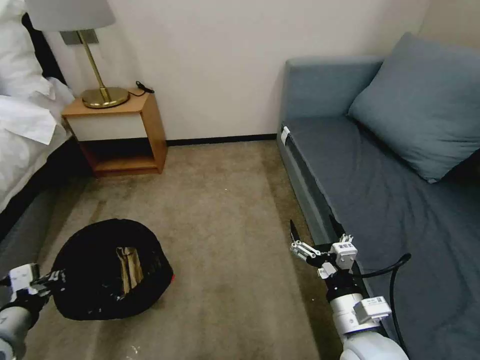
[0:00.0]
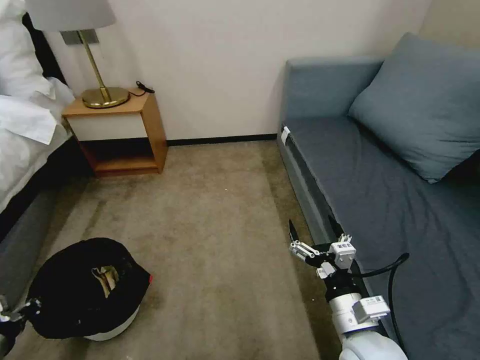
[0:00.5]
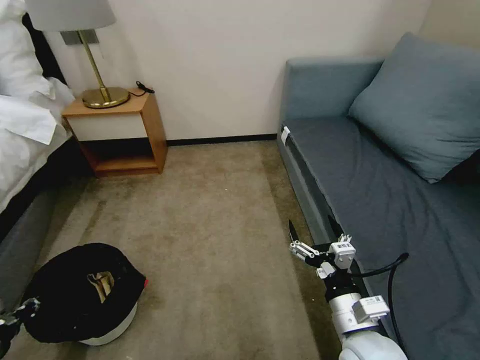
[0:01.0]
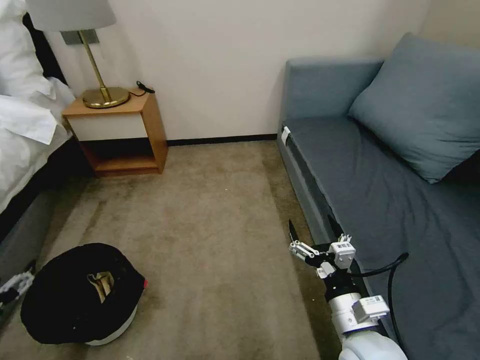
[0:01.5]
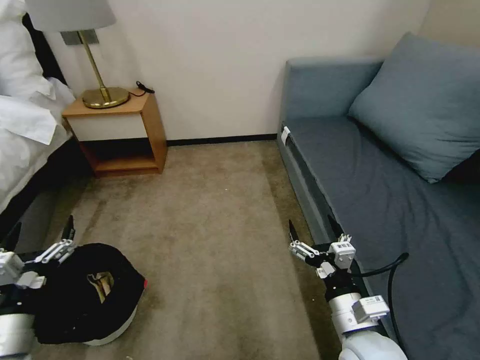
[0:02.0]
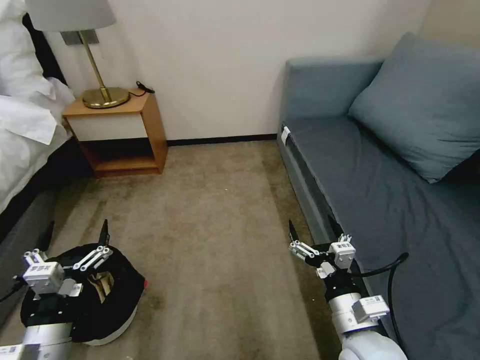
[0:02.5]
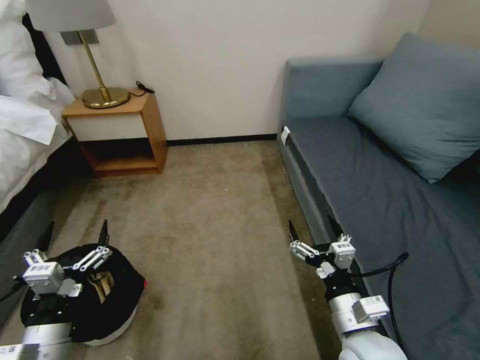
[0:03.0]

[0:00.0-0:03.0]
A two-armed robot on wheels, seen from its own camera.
Task of the whole recording: Pick up the trash bin, then pick up the garbage on the floor and place it into the trash bin.
0:00.0 to 0:01.5: The left gripper heads to the left, covering approximately 5 cm, and opens.
0:01.5 to 0:03.0: The left gripper shifts approximately 15 cm to the right.

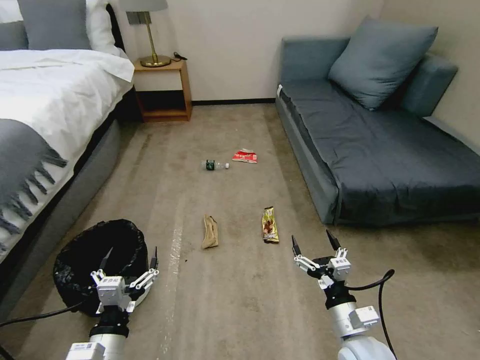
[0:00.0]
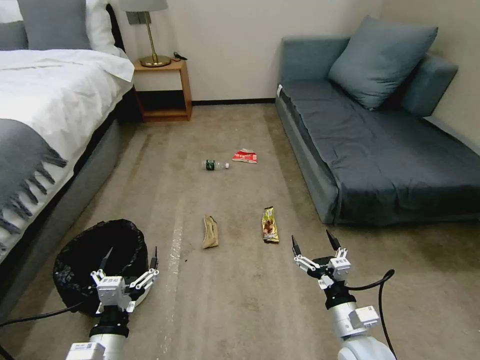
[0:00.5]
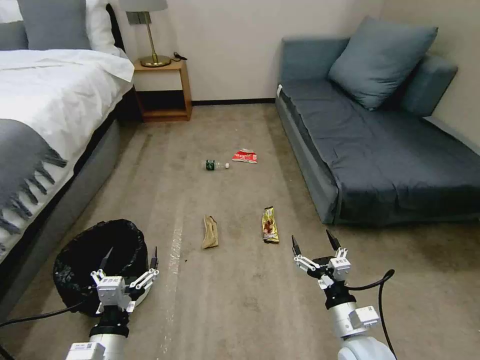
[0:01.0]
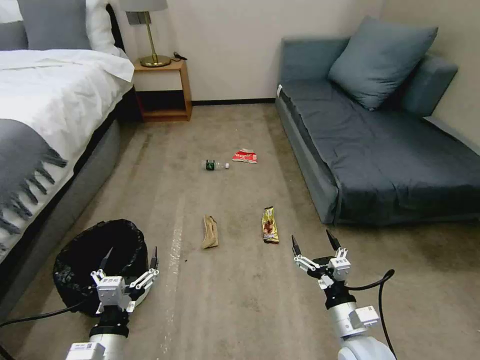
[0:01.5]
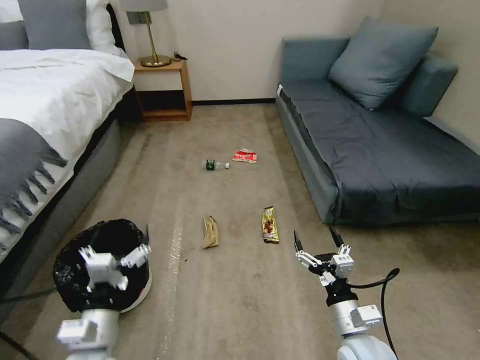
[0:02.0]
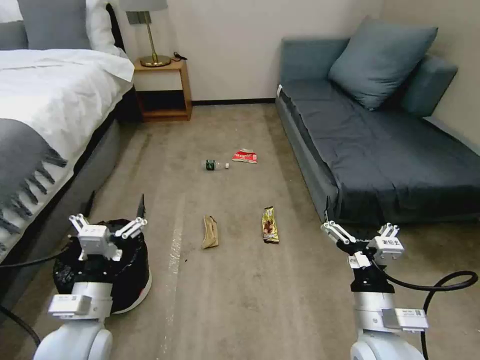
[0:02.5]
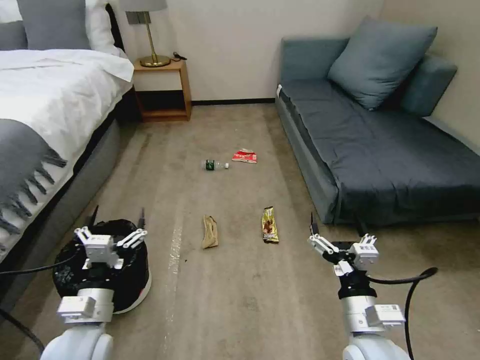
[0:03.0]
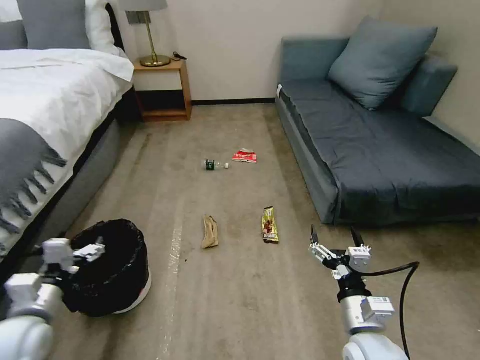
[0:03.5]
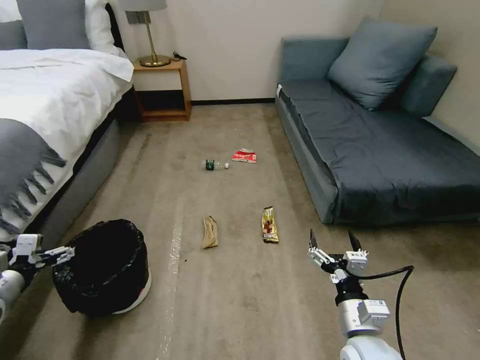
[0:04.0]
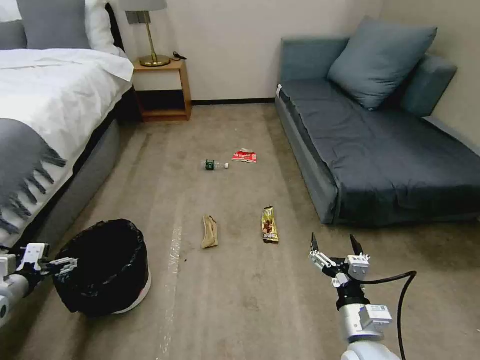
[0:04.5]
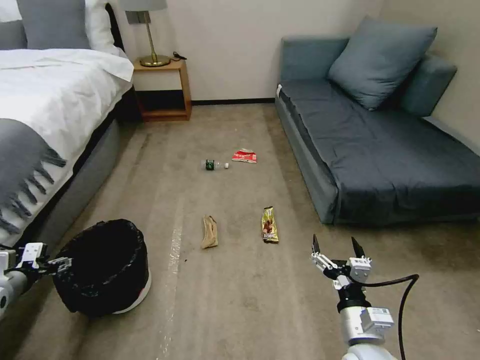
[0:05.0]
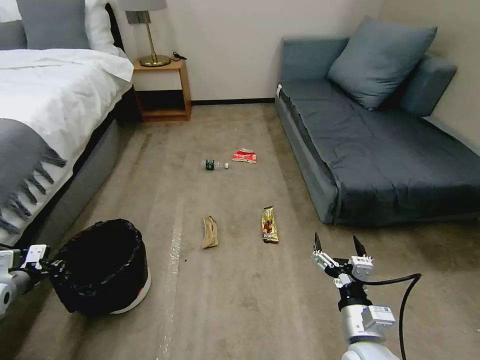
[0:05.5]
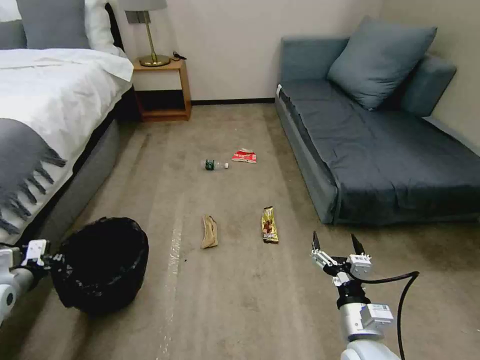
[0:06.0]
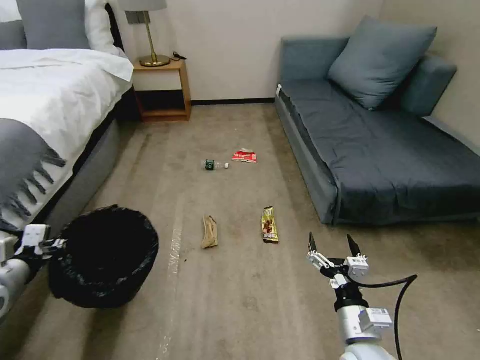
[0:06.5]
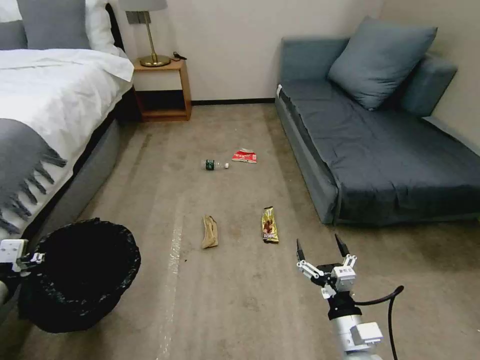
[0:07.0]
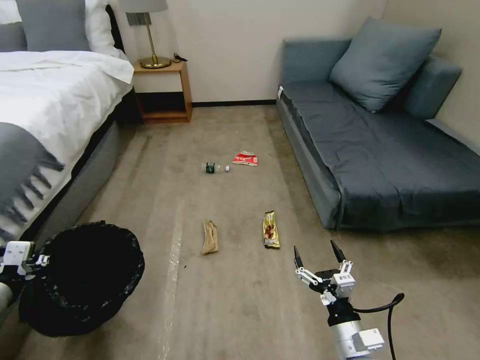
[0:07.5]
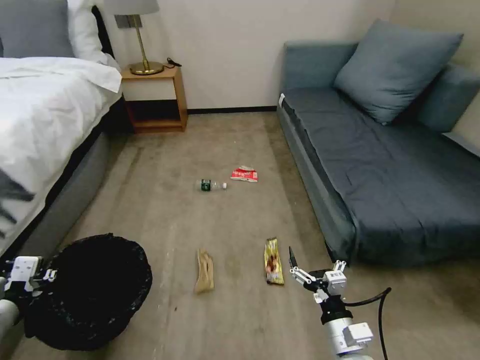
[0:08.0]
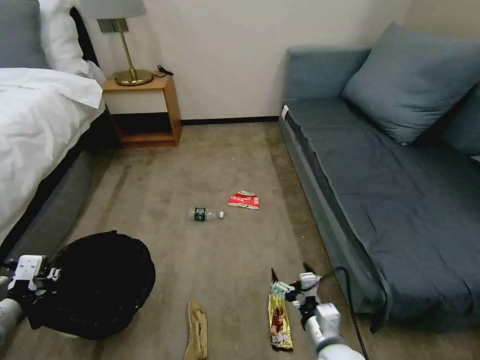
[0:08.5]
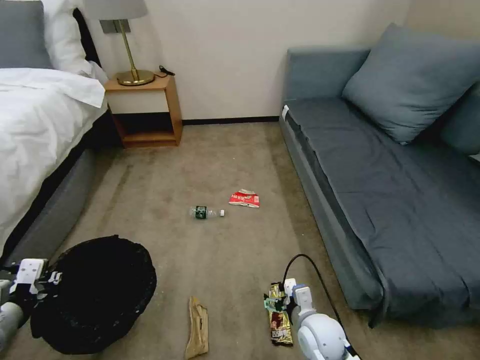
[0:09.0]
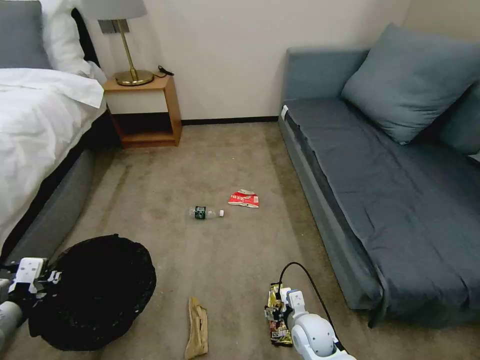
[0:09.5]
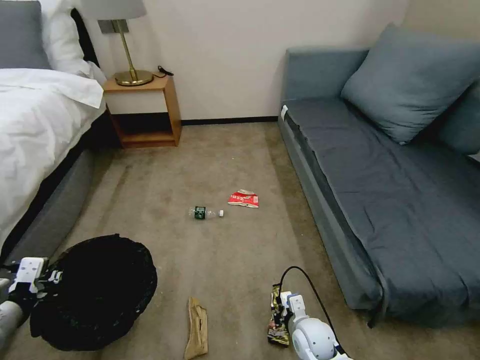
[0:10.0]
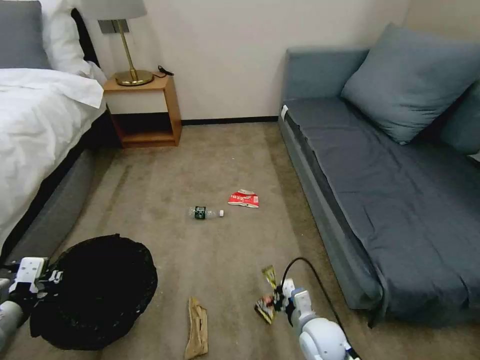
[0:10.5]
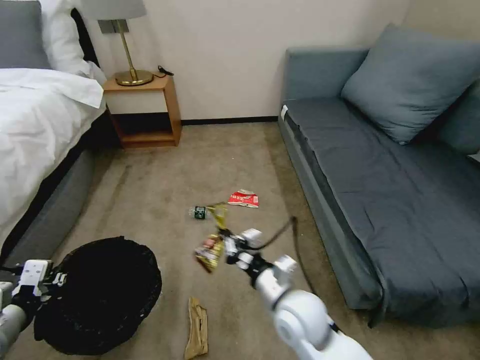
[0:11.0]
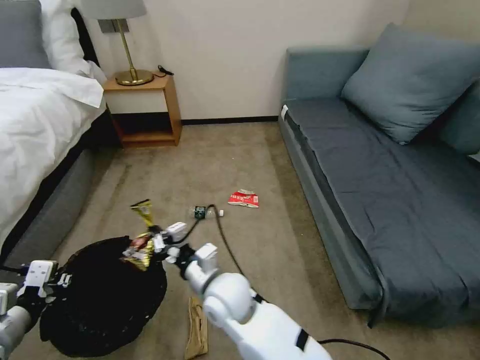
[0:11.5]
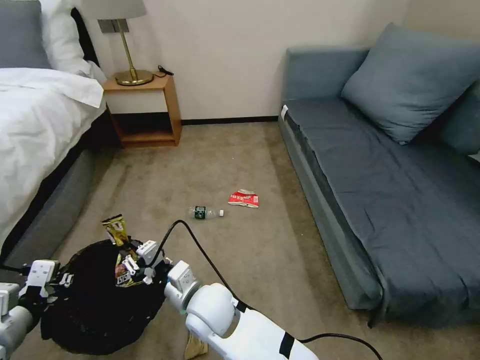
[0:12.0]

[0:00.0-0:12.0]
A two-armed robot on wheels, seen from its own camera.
Task of the whole recording: Pick up the trash bin, then pick up the garbage on the floor and place it into the trash bin.
0:02.0 to 0:04.0: The left gripper goes some 25 cm to the left, while the right gripper travels upward and back again, approximately 10 cm each way.
0:04.0 to 0:06.0: The left gripper closes.
0:06.0 to 0:08.0: The left gripper is displaced backward, to the right and upward by about 15 cm.
0:08.0 to 0:10.0: The right gripper heads downward and forward, covering roughly 15 cm, and closes.
0:10.0 to 0:12.0: The right gripper moves to the left and upward, some 30 cm.

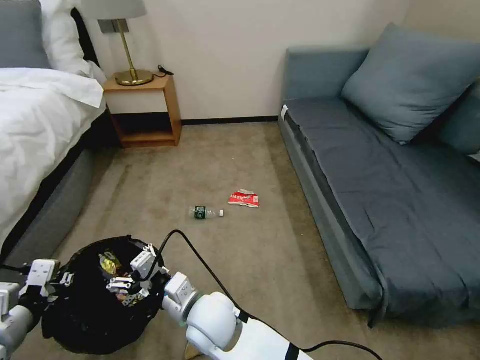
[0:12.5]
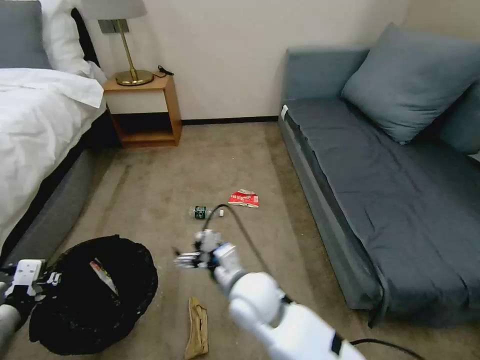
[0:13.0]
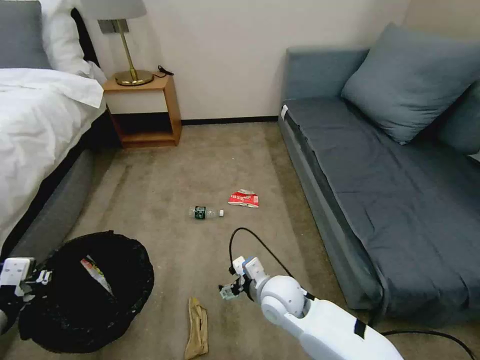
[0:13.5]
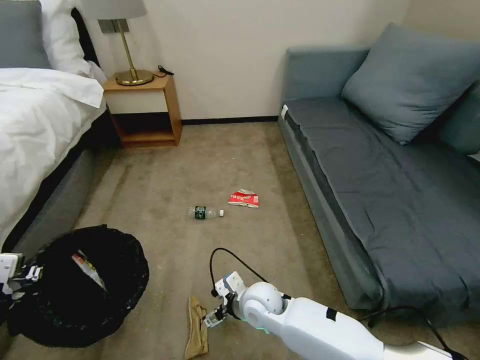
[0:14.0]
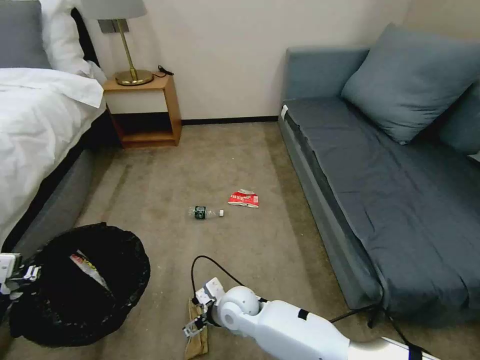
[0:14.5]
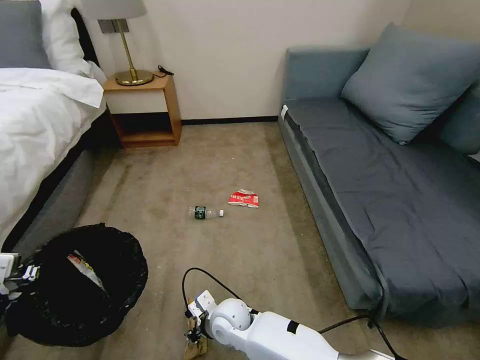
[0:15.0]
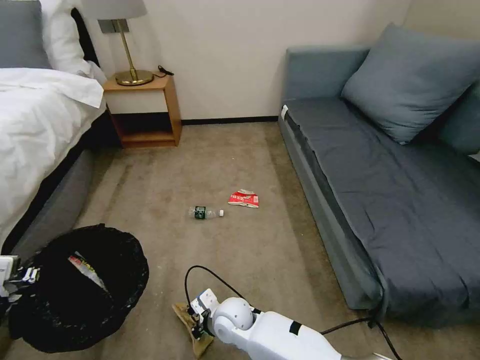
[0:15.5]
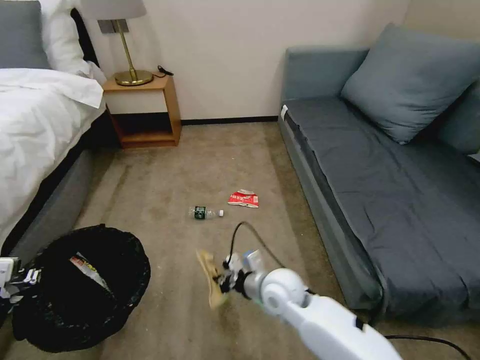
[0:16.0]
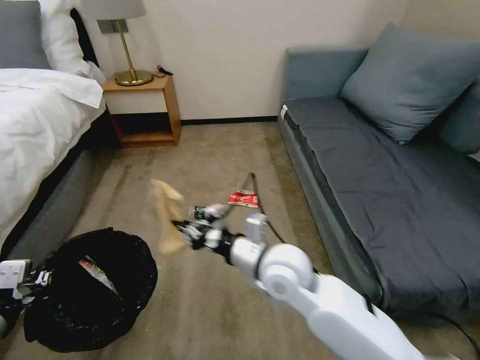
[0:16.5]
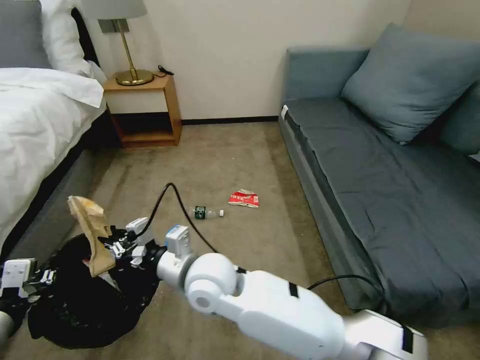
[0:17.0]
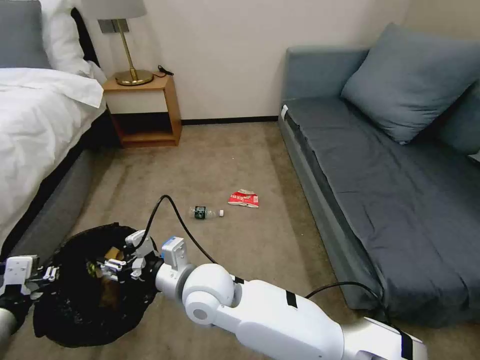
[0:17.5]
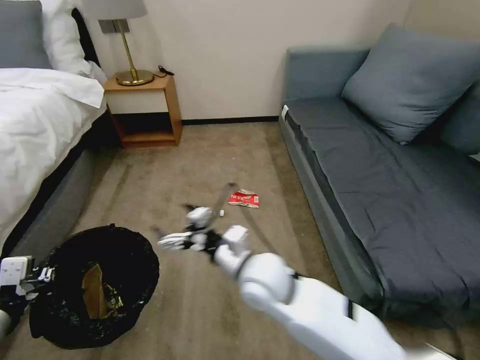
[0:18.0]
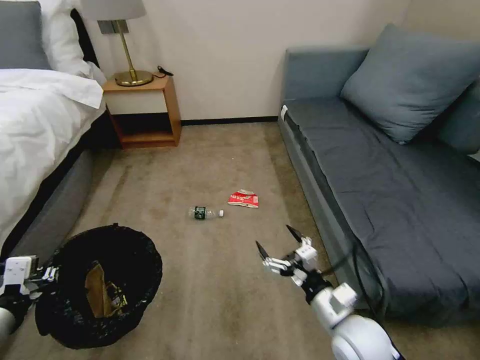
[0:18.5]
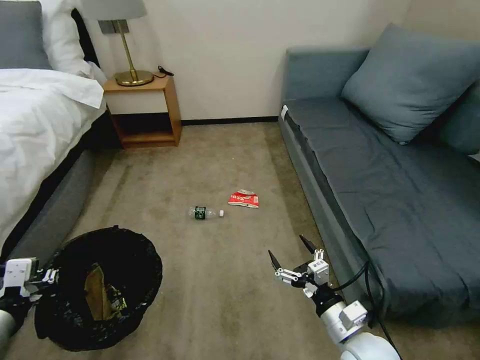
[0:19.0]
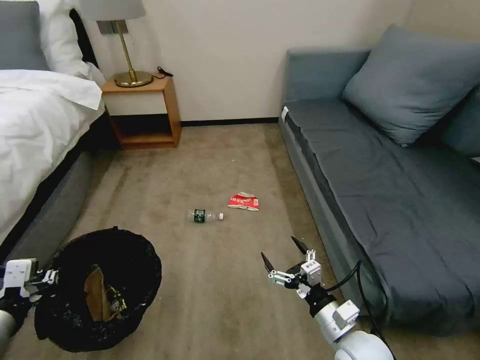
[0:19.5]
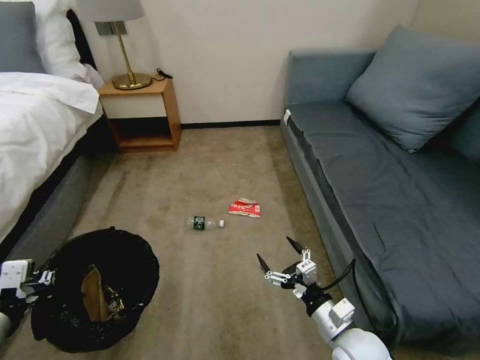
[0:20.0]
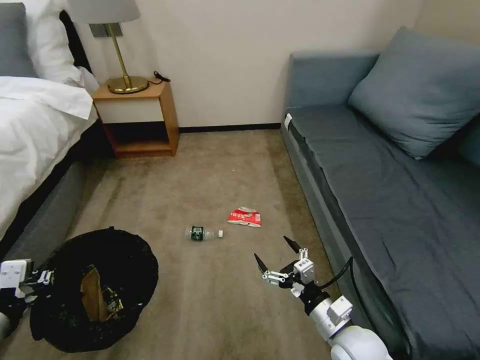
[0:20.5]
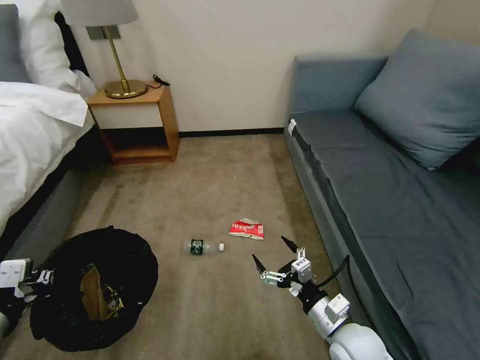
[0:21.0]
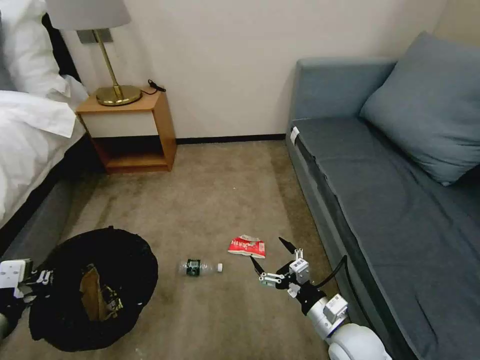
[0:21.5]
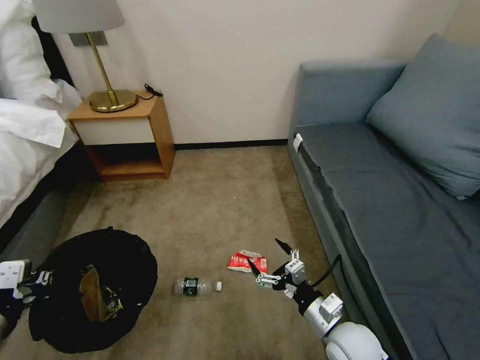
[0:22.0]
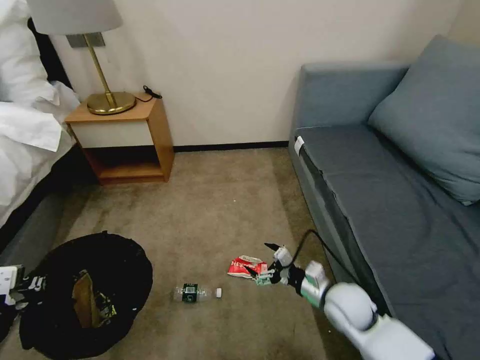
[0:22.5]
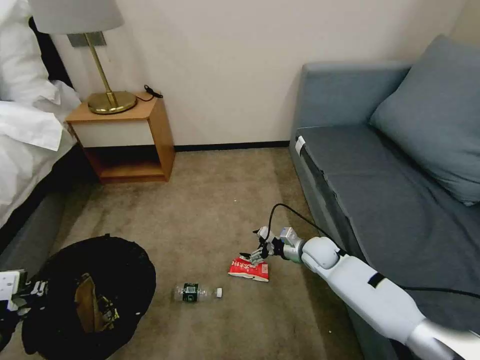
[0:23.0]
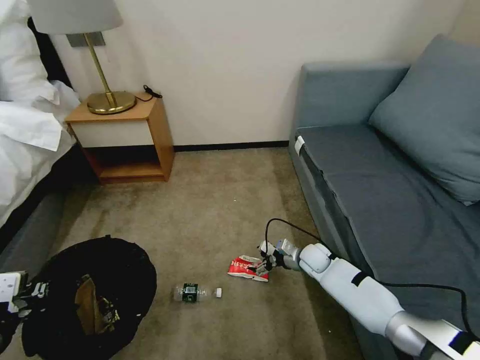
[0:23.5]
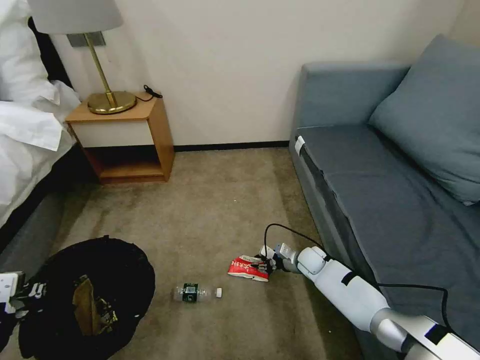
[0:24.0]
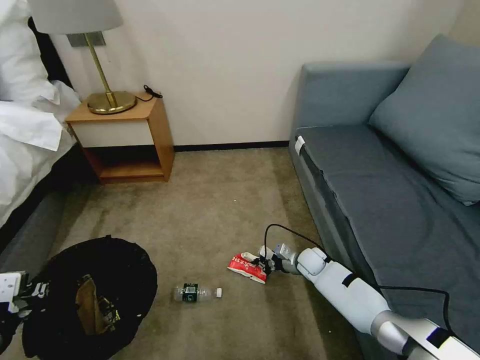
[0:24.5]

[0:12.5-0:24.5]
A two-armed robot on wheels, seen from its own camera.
Task of the whole recording: Pick up the trash bin, then pick up the garbage on the floor and place it into the trash bin.
0:12.5 to 0:14.5: The right gripper travels downward and forward by roughly 15 cm, and goes to the right and returns, roughly 15 cm each way.
0:14.5 to 0:16.5: The right gripper goes roughly 25 cm upward and to the right, and closes its fingers.
0:16.5 to 0:18.5: The right gripper is displaced to the right, downward and backward by some 20 cm, and opens up.
0:20.5 to 0:22.5: The right gripper goes approximately 10 cm forward.
0:22.5 to 0:24.5: The right gripper moves forward and downward, about 20 cm, and closes.
